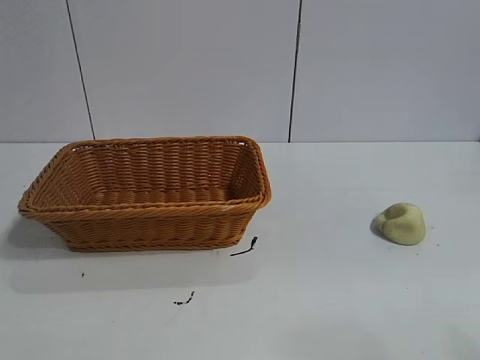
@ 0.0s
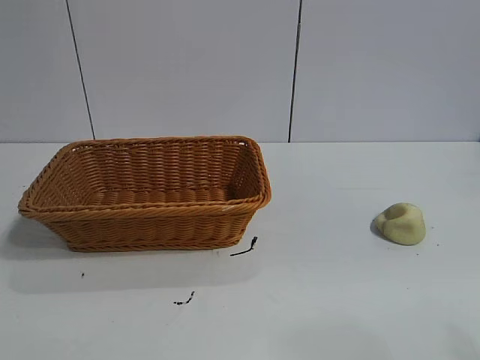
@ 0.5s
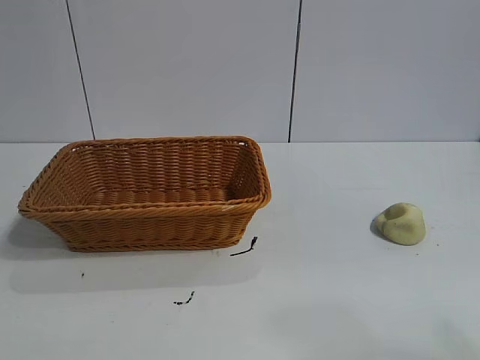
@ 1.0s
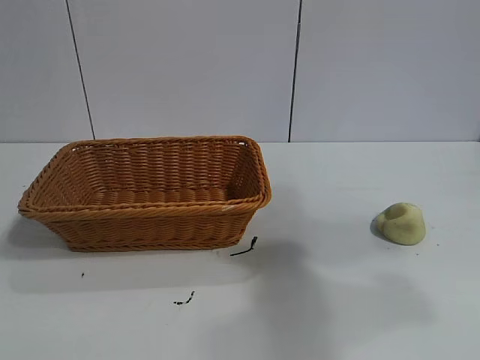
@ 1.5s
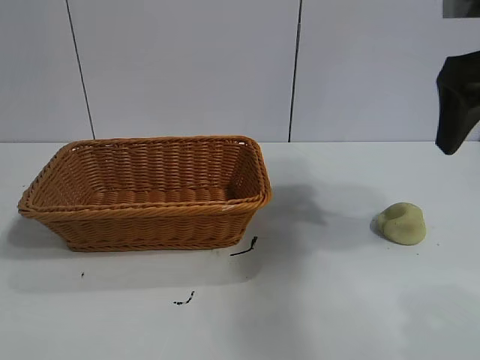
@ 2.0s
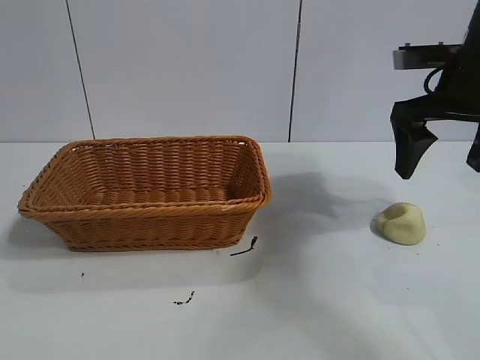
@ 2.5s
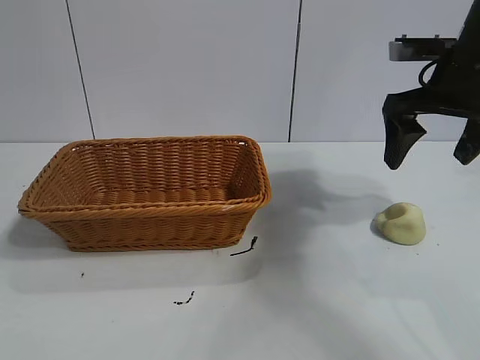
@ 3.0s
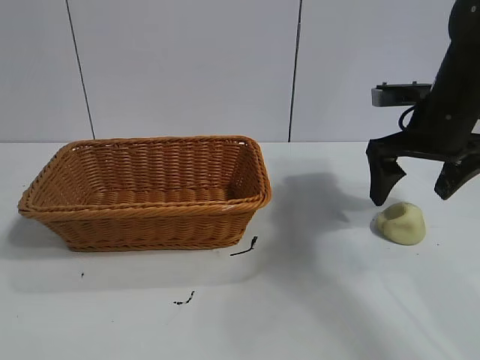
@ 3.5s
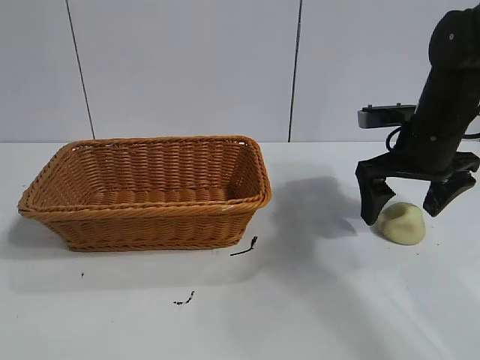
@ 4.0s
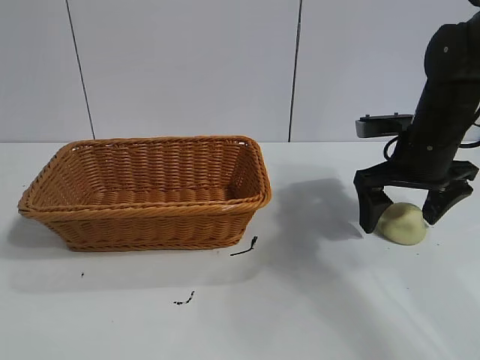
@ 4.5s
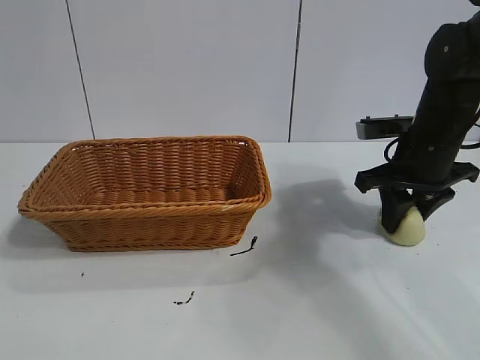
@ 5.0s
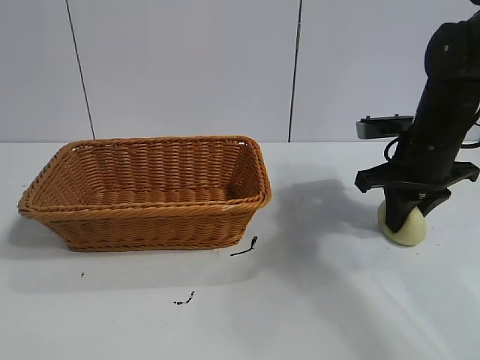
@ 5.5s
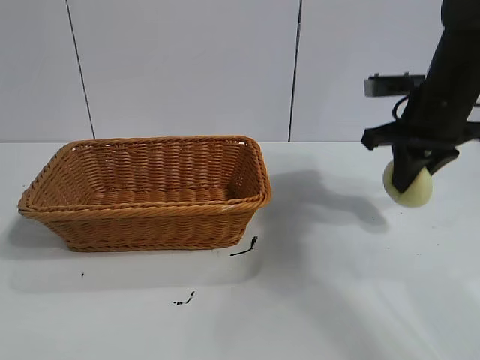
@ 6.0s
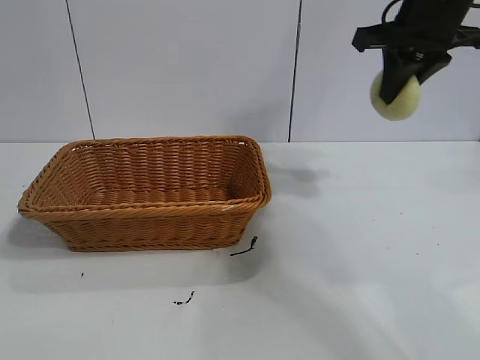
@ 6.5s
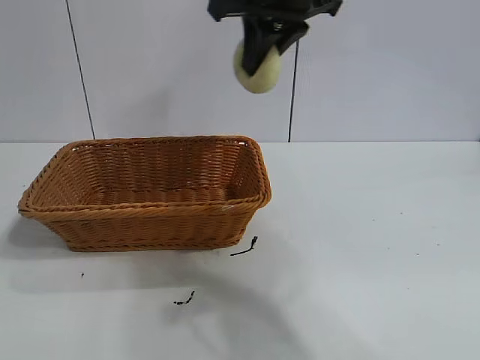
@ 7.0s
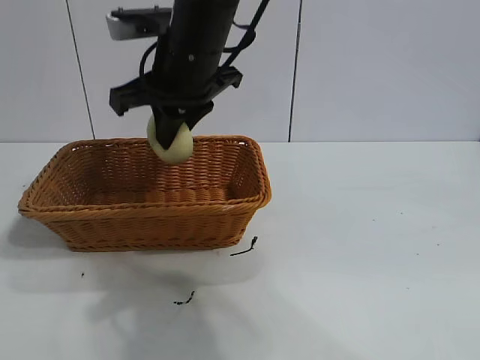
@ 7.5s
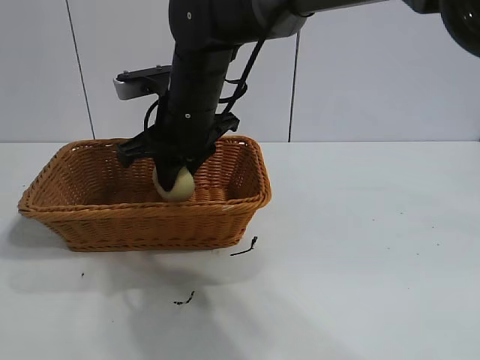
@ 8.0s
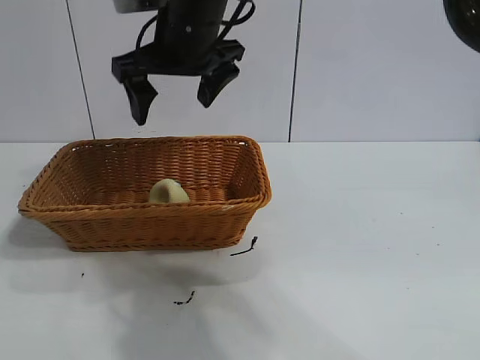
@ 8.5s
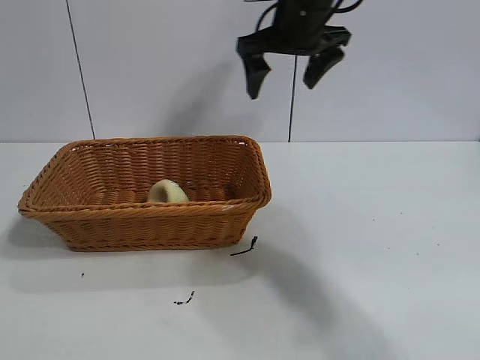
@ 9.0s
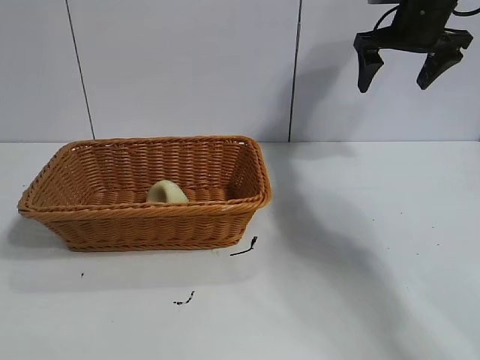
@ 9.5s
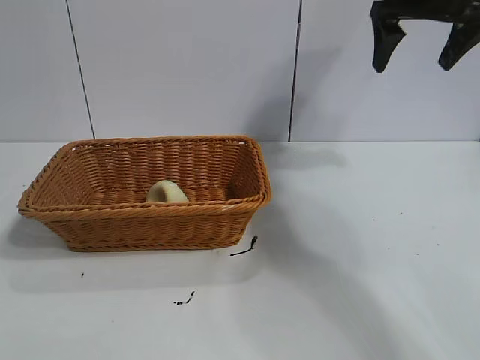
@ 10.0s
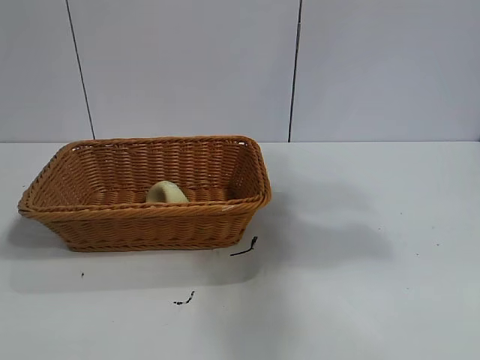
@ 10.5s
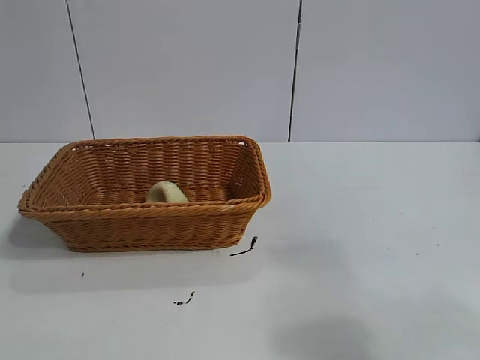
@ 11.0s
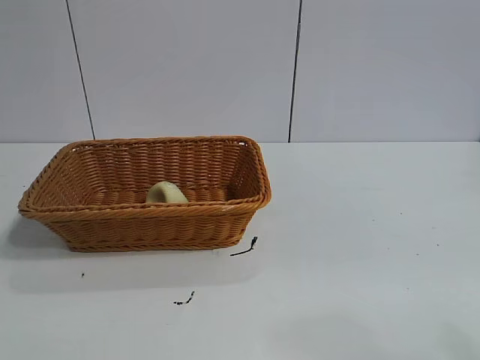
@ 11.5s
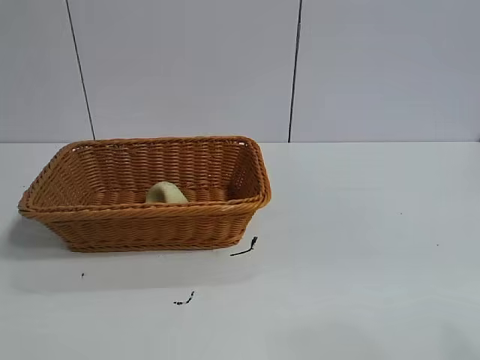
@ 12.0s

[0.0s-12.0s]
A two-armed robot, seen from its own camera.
Task of the whole recording: pick up the egg yolk pastry and put it into the basket.
Step, 1.0s to 5.5s: Grasp egg yolk pastry with right gripper.
Step, 6.0s to 8.0s: Place the egg yolk pastry in the basket with right gripper.

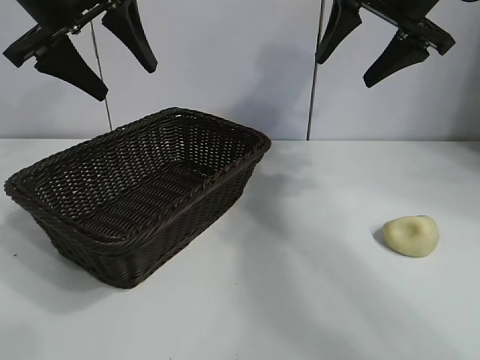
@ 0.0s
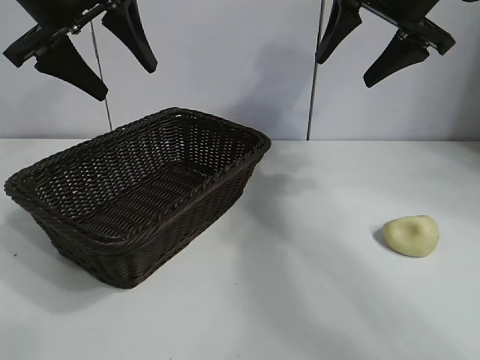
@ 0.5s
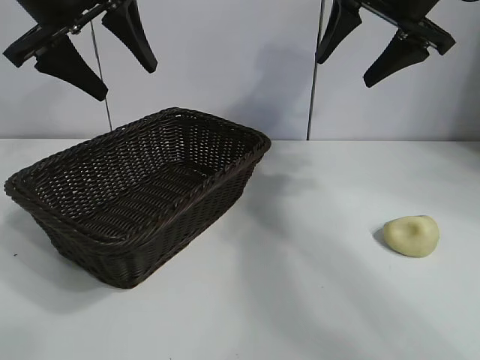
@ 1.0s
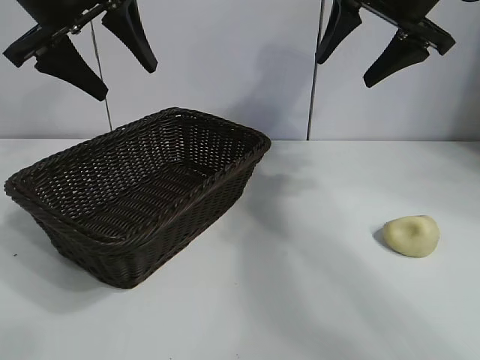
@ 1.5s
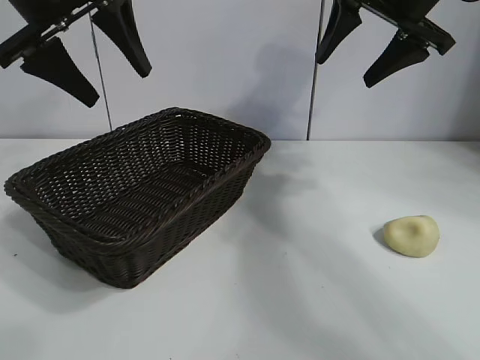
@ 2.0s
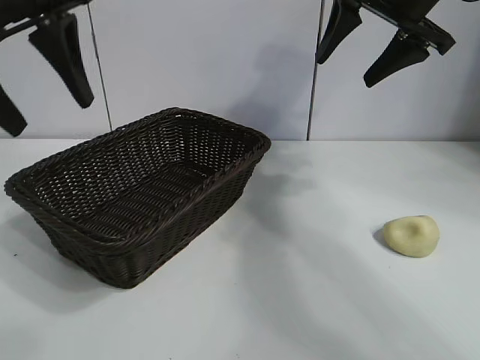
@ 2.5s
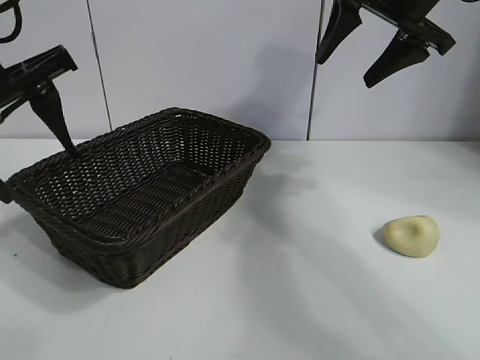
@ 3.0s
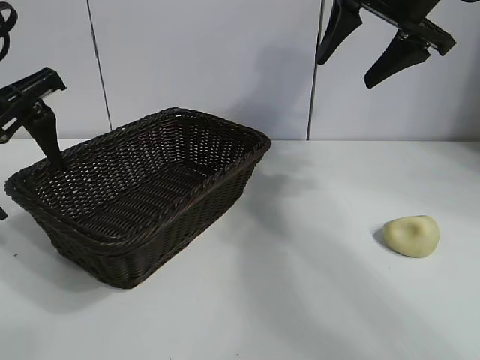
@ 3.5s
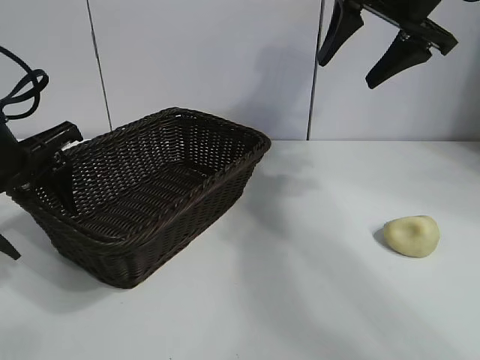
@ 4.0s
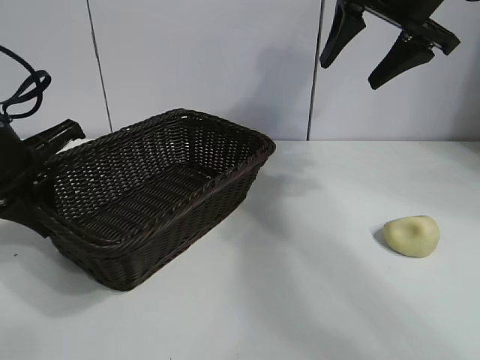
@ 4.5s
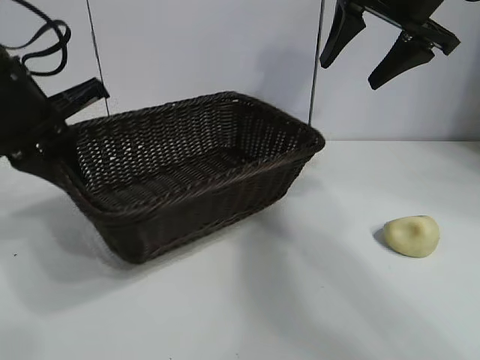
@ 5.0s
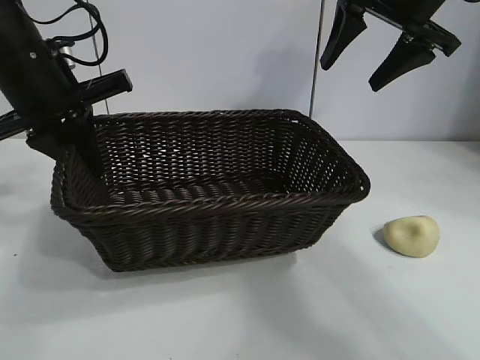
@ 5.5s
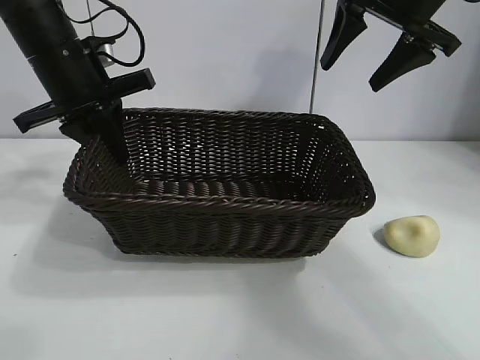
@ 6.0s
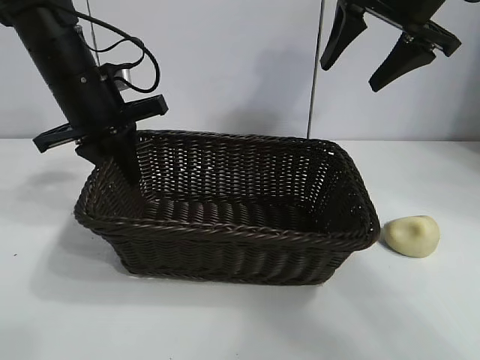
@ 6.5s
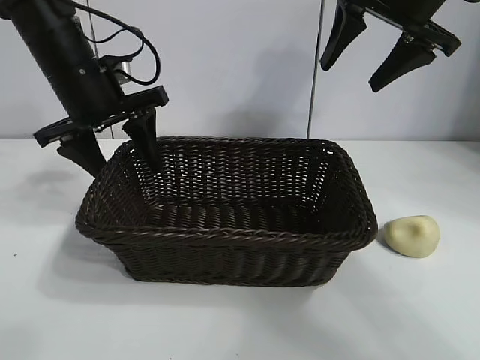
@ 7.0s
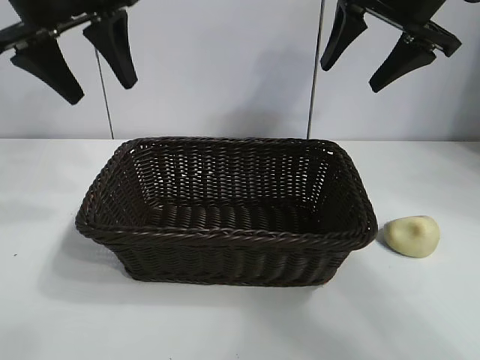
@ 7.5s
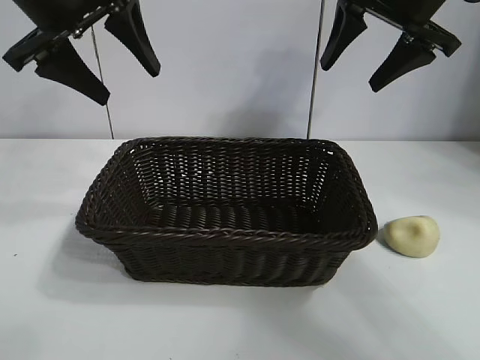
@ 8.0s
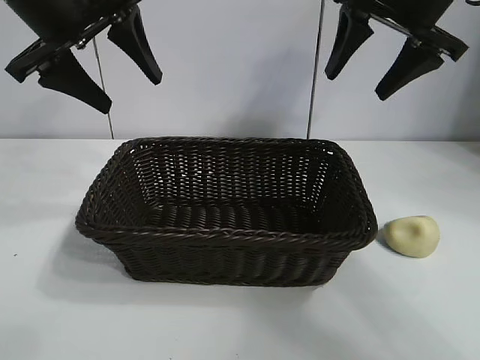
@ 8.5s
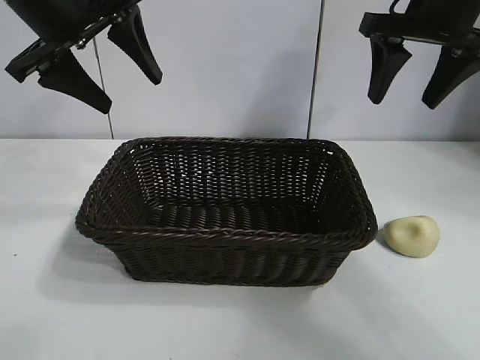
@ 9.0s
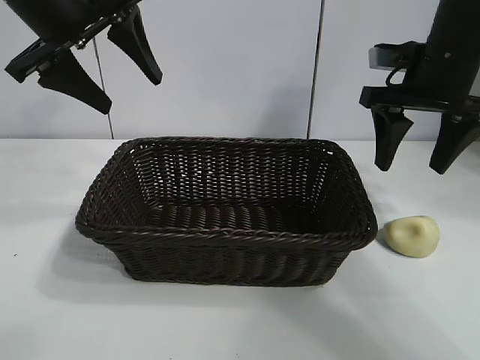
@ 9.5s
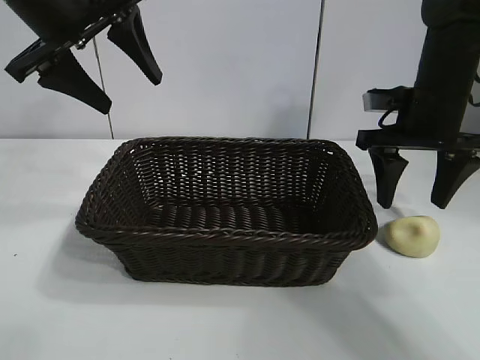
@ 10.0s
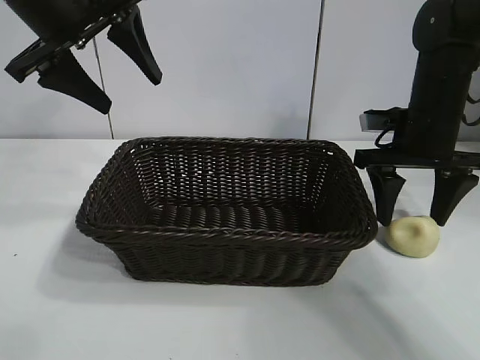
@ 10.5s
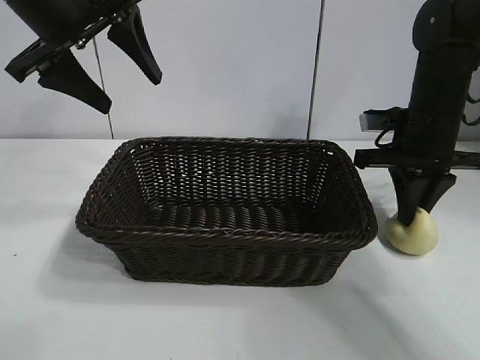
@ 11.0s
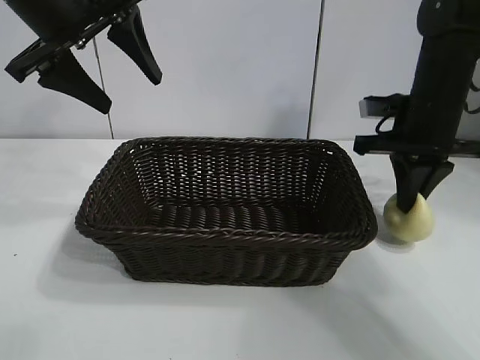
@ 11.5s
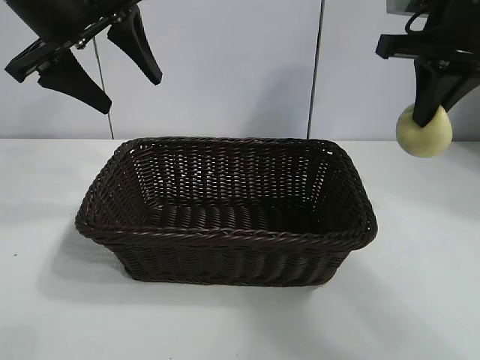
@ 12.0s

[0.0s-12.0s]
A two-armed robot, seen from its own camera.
Task of the whole recording: pick up the egg yolk pastry and put it into the basket.
Step, 2.0s to 4.0s: Grasp the basket with left gripper.
Step, 4.5s to 6.5s: Place the basket in the center of view with left gripper.
Step, 7.5s to 11.0s: Grasp egg yolk pastry with right gripper.
